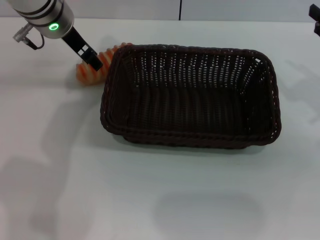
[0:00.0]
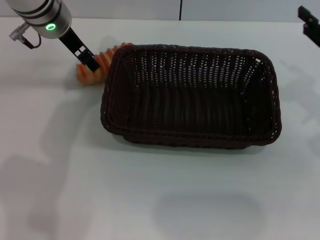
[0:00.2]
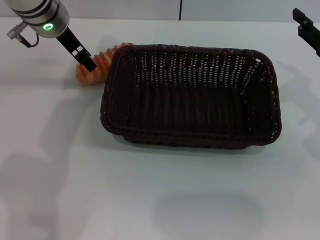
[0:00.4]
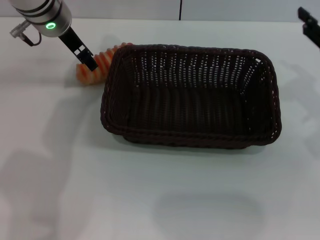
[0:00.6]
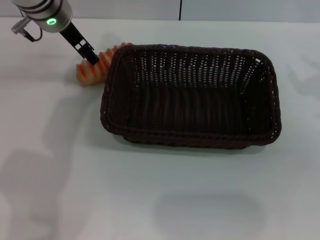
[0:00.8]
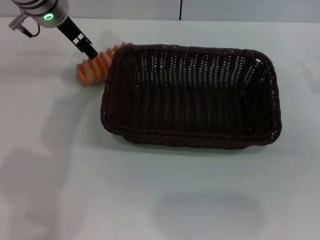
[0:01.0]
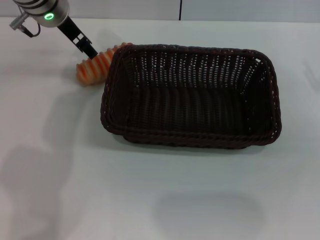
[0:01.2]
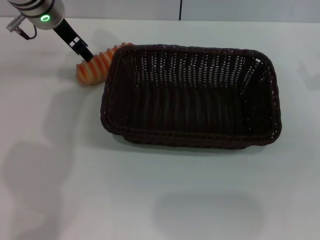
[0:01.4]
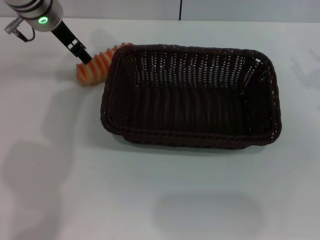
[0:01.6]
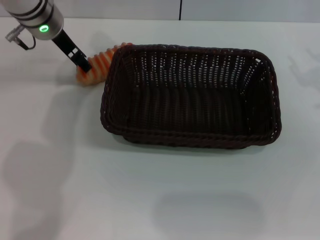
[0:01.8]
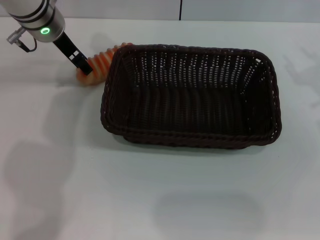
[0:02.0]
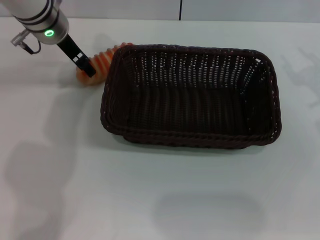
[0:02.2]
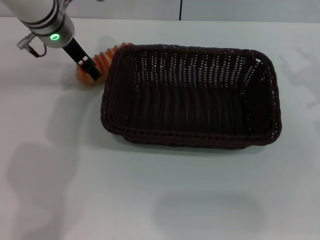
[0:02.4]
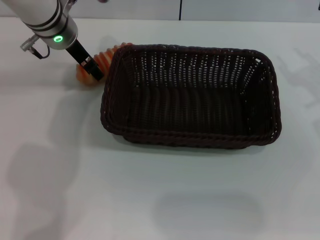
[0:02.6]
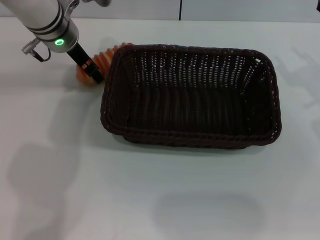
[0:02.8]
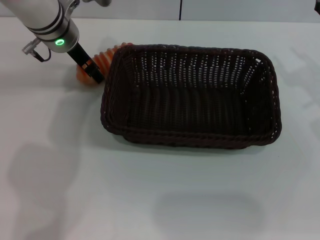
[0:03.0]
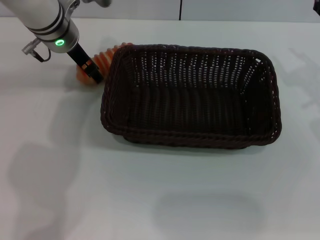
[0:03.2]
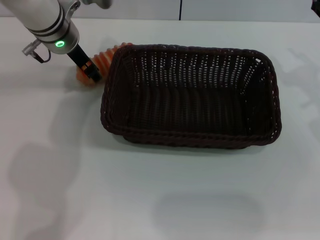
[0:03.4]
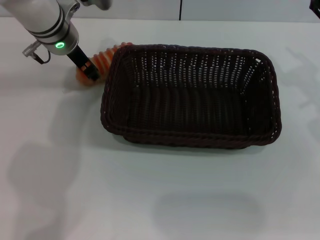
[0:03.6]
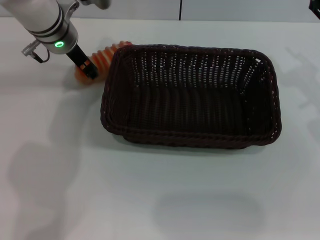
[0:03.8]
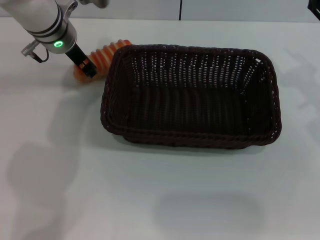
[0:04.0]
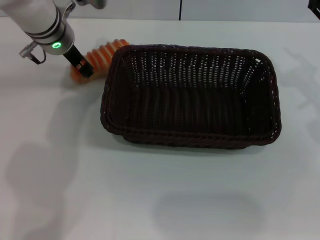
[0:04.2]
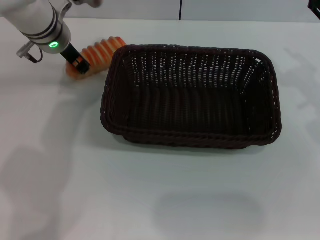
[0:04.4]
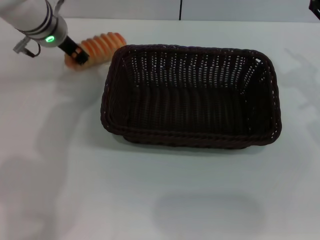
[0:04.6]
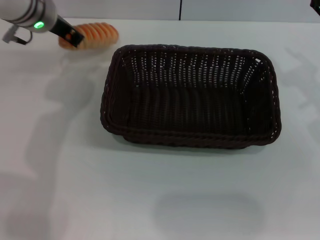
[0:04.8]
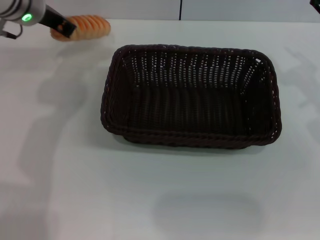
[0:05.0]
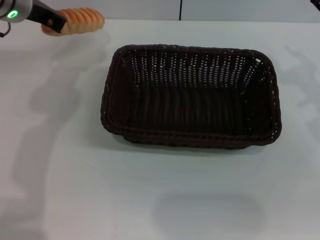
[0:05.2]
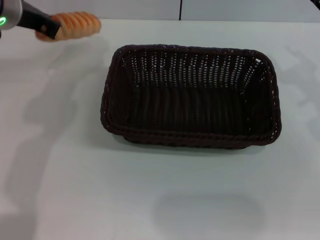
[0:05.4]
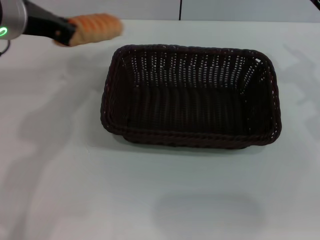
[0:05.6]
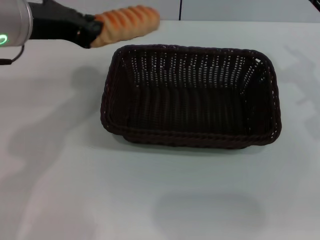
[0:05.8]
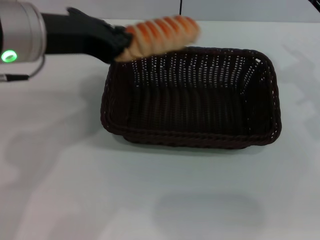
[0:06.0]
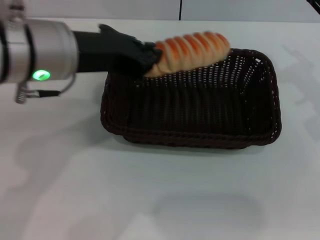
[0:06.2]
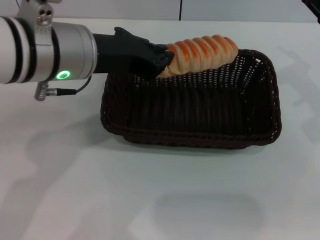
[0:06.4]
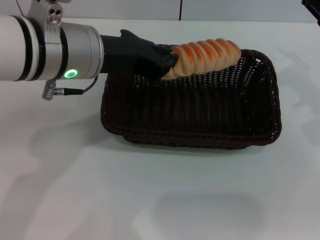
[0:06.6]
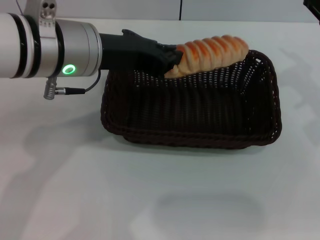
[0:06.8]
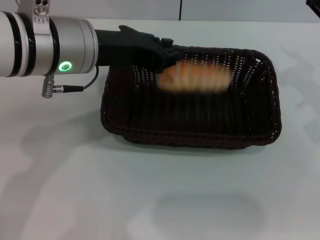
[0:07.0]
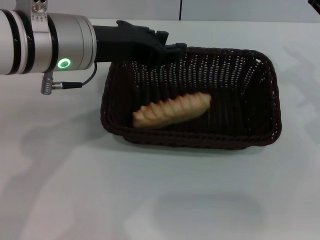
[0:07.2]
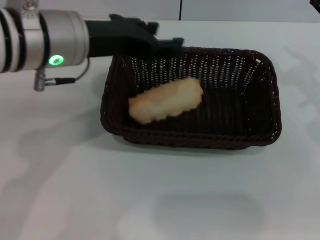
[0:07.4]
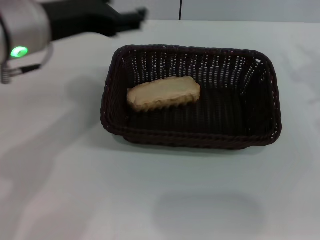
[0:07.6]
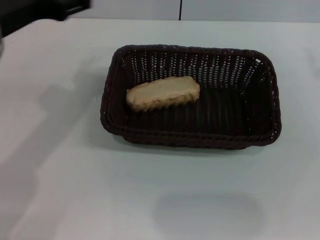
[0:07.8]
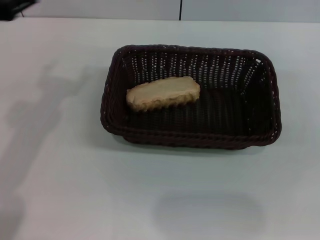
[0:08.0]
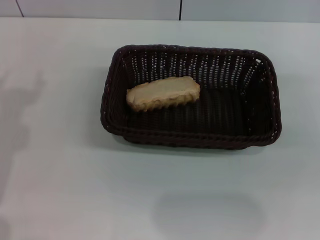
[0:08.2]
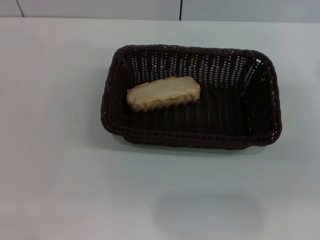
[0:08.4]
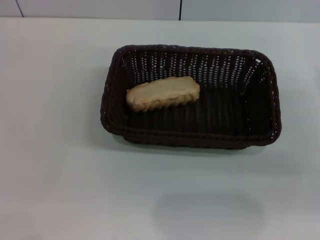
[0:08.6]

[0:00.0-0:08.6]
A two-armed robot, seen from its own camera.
Step, 0:00.0 to 0:04.8: Pick up the long bread with the left gripper.
Step, 0:05.0 to 0:07.0: Place the long bread into the dark basket with the left gripper.
0:00.0 to 0:02.8: There are only small adjustments of the grippers.
0:02.8 to 0:04.4: The left gripper closes up.
0:04.4 to 0:05.8: The left gripper heads backward and upward, covering approximately 15 cm.
0:05.8 to 0:07.2: The left gripper heads to the right, covering approximately 5 cm.
0:07.2 to 0:08.6: The right gripper ends up some 10 cm from where it was; the left gripper heads to the left and backward, covering some 25 cm, and opens its fingers.

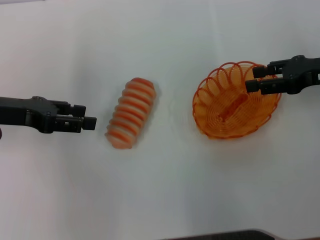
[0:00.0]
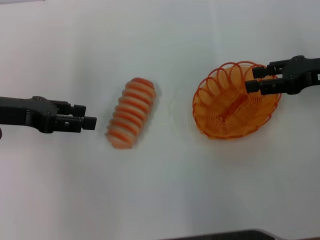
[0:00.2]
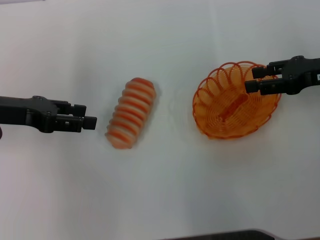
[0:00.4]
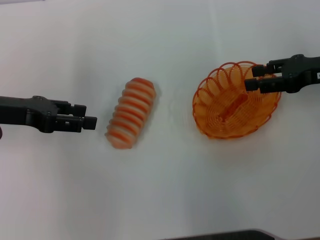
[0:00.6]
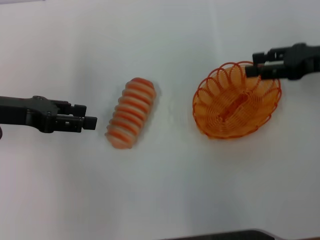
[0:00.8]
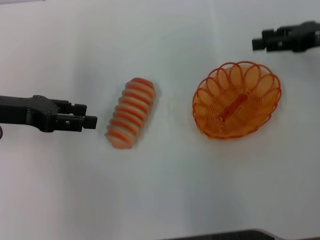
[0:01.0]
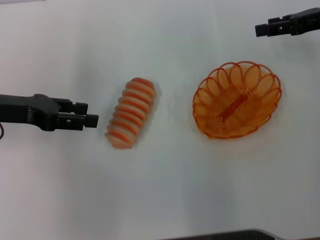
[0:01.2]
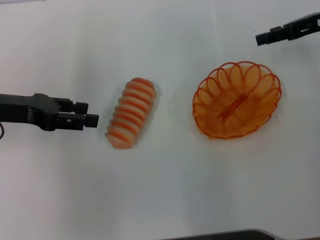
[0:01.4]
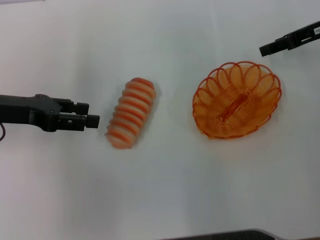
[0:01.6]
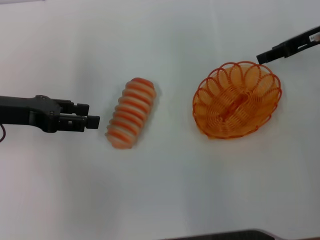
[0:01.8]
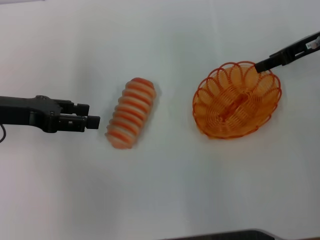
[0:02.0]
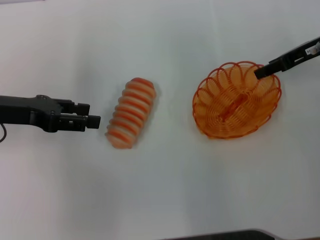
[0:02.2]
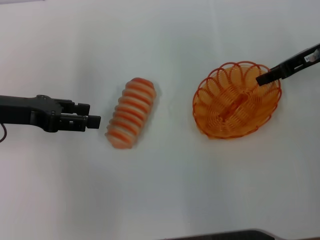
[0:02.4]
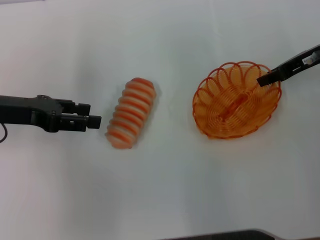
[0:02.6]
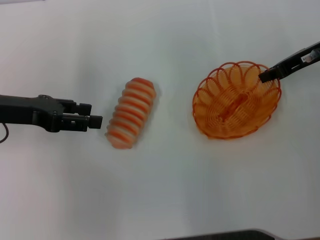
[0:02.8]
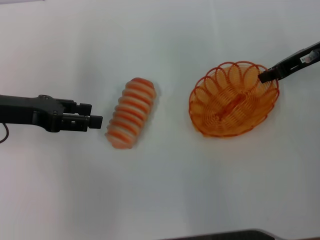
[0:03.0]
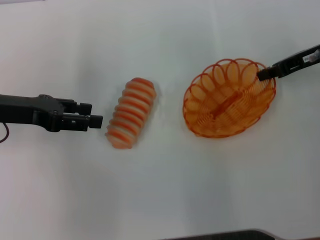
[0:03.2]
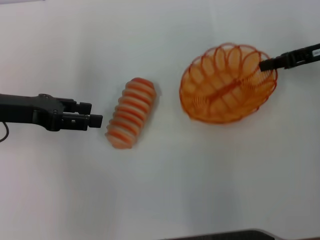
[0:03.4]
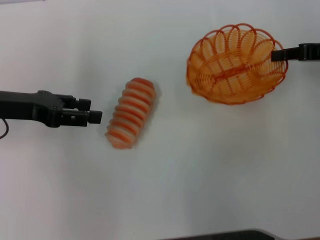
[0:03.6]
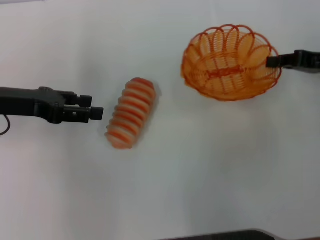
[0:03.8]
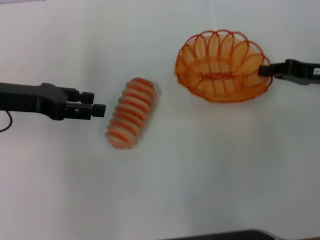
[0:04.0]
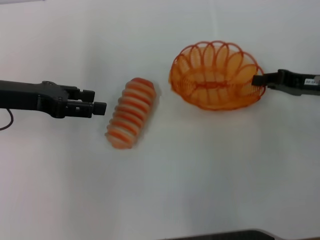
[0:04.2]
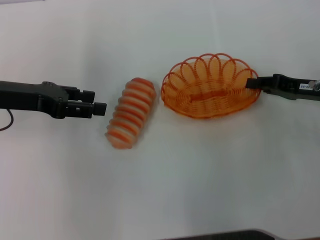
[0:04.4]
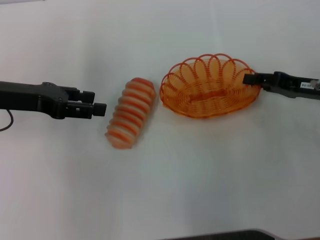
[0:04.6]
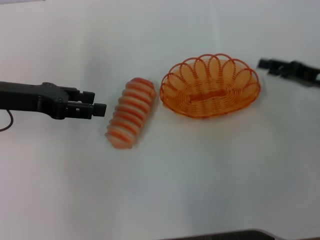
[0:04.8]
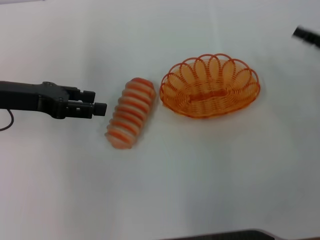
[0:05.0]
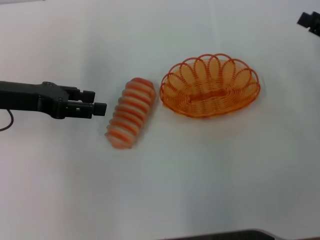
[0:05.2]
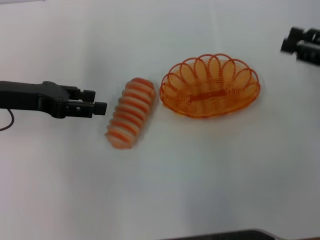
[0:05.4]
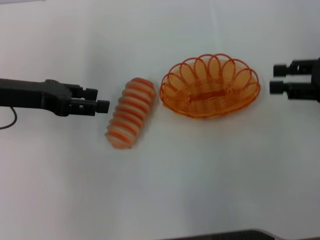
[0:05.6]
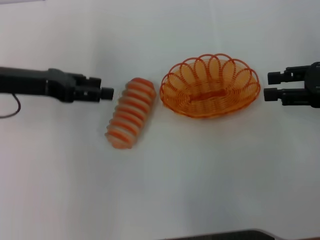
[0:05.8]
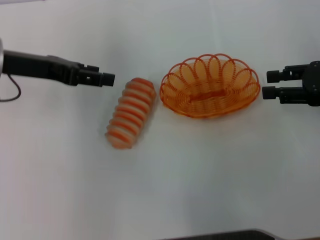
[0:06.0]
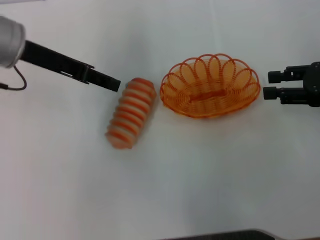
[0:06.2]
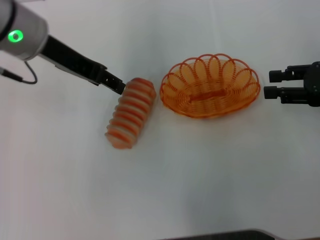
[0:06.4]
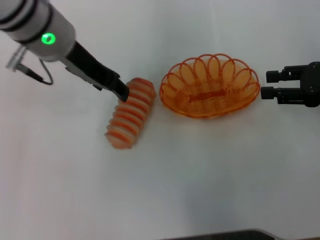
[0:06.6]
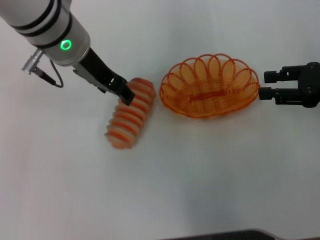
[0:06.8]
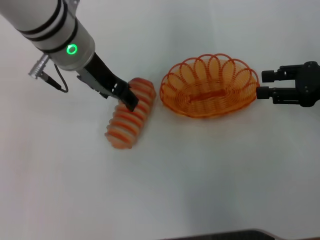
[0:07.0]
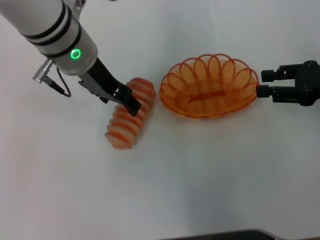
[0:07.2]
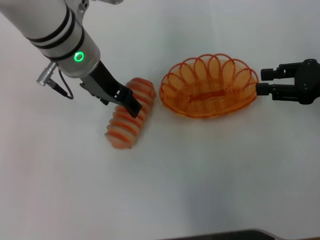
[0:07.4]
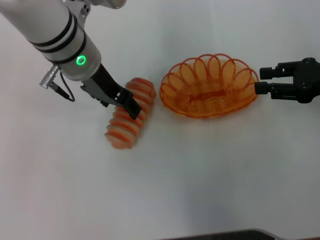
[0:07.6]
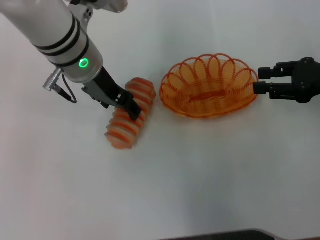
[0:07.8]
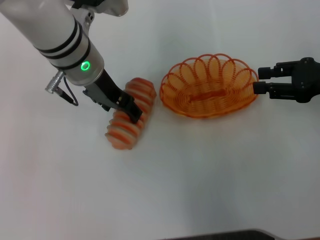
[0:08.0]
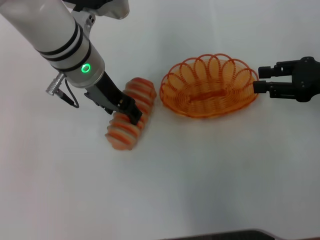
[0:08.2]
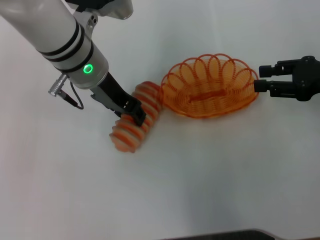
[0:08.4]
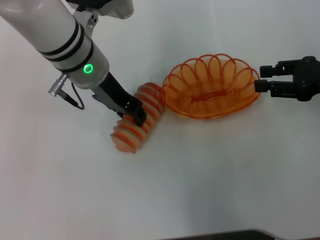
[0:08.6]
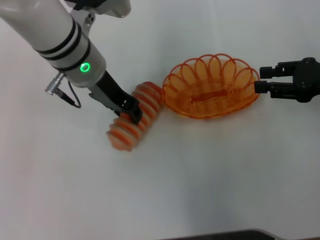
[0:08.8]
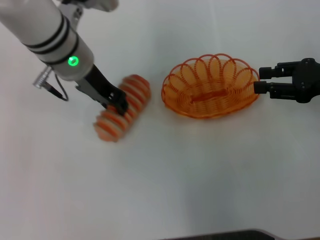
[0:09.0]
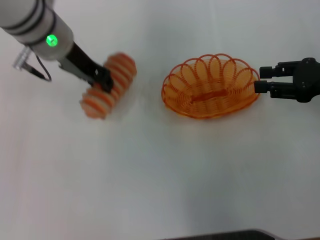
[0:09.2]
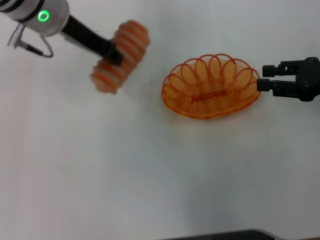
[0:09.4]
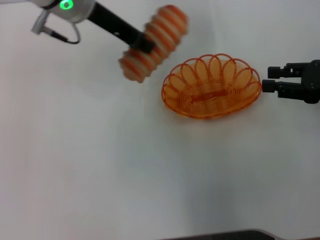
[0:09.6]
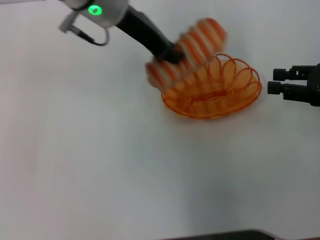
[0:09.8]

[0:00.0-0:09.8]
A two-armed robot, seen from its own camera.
Step, 0:00.0 to 0:03.6: Pick up the basket with the right gripper.
Step, 0:03.8 to 0:04.8: Place the basket in the center of view with the right gripper.
Step, 0:05.0 to 0:09.2: Pick up the long bread with the left gripper.
0:00.0 to 0:01.4: The right gripper goes roughly 5 cm forward.
0:01.4 to 0:02.8: The right gripper closes.
0:02.8 to 0:04.2: The right gripper is displaced backward and downward by some 10 cm, and closes its fingers.
0:04.2 to 0:05.6: The right gripper is displaced upward by roughly 5 cm, and opens.
0:05.6 to 0:07.0: The left gripper travels to the right by about 15 cm.
0:07.0 to 0:08.4: The grippers stay close to where they were, moving slightly.
0:08.4 to 0:09.8: The left gripper shifts about 5 cm upward, and closes up.

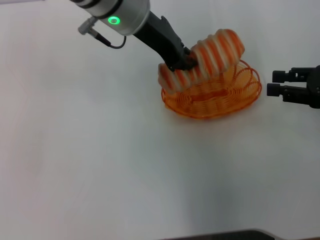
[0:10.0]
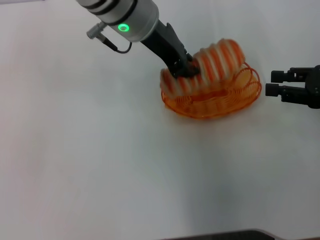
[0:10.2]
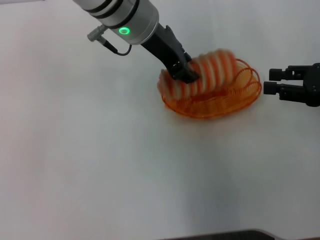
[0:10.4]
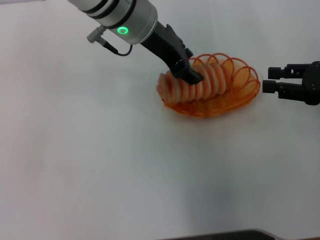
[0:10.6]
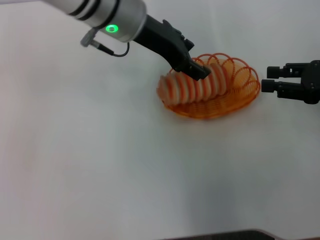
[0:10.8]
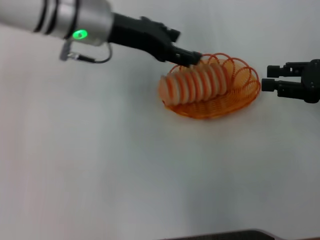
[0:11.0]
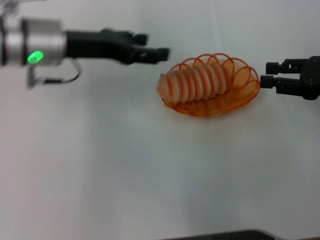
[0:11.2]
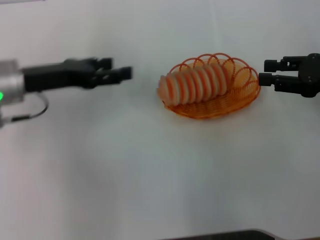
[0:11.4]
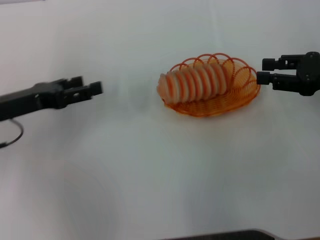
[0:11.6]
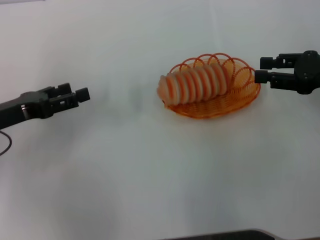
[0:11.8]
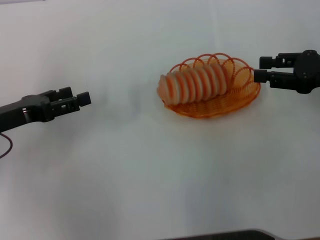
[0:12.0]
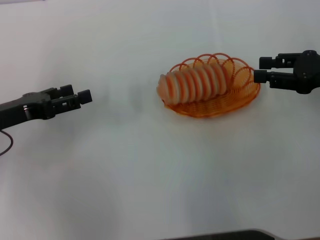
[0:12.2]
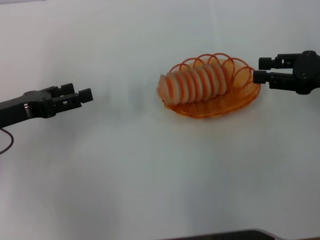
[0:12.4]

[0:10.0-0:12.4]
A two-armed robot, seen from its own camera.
0:10.0 to 0:11.2: The left gripper travels to the left and downward by some 15 cm, and opens its fingers.
0:11.2 to 0:12.4: The left gripper travels to the left, backward and downward by approximately 15 cm.
